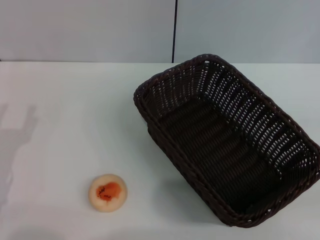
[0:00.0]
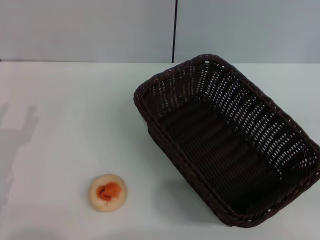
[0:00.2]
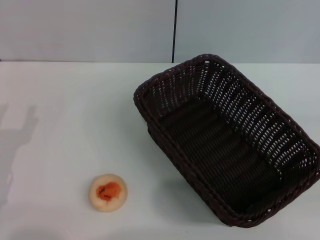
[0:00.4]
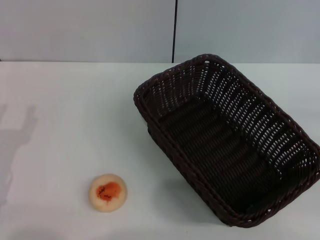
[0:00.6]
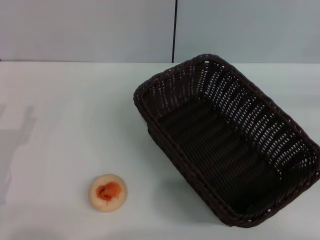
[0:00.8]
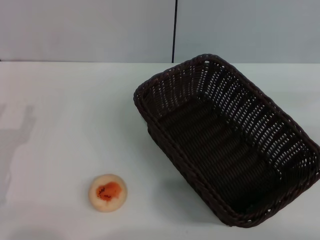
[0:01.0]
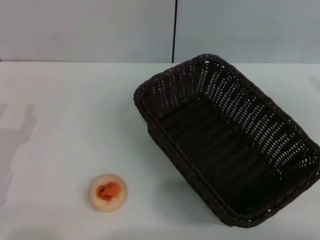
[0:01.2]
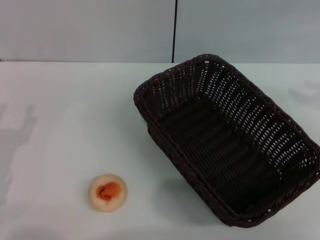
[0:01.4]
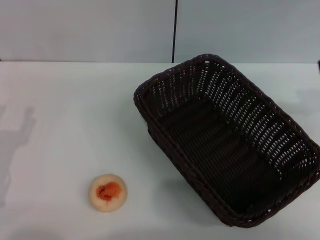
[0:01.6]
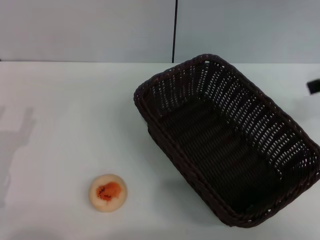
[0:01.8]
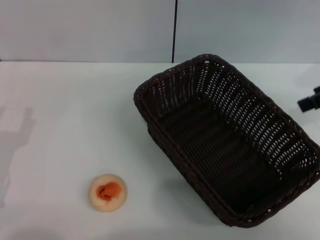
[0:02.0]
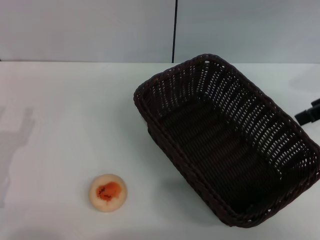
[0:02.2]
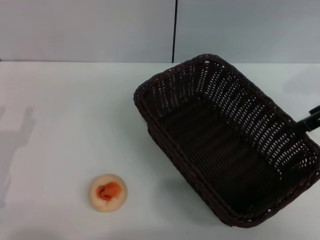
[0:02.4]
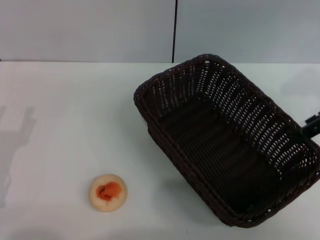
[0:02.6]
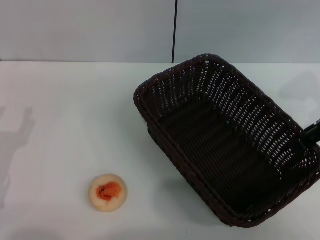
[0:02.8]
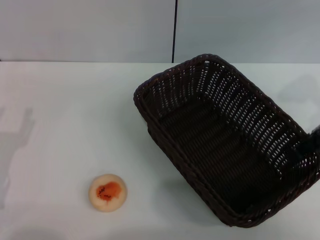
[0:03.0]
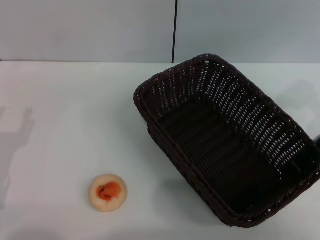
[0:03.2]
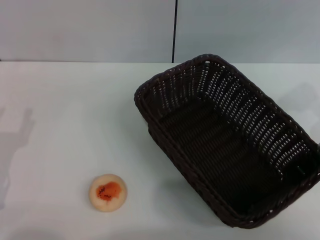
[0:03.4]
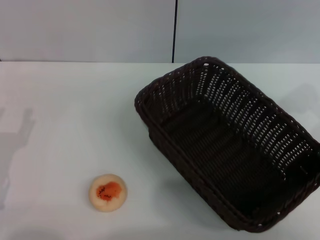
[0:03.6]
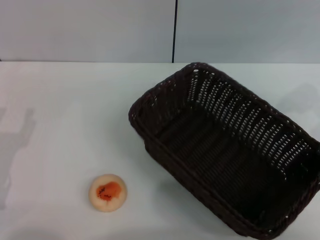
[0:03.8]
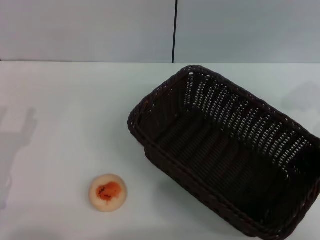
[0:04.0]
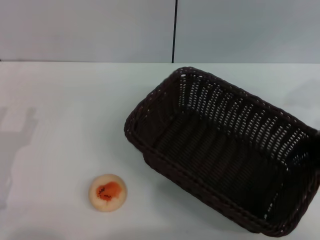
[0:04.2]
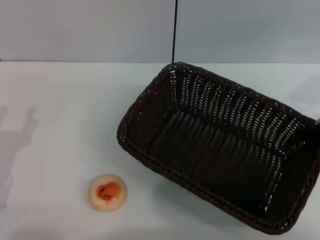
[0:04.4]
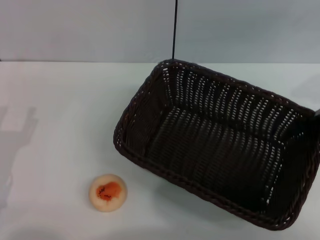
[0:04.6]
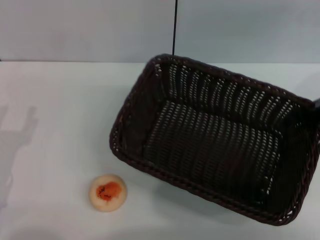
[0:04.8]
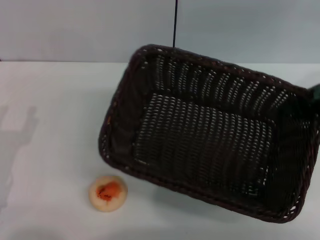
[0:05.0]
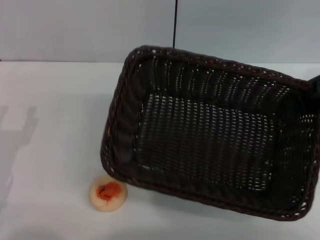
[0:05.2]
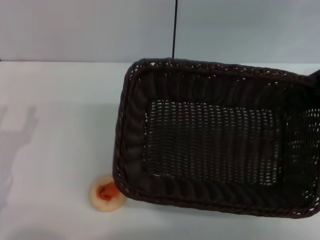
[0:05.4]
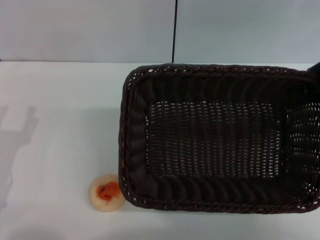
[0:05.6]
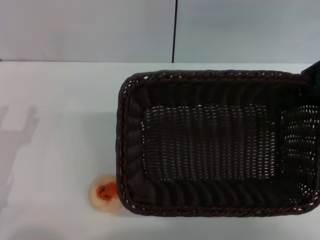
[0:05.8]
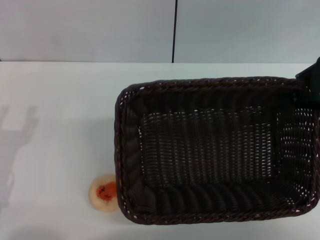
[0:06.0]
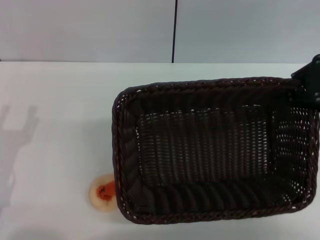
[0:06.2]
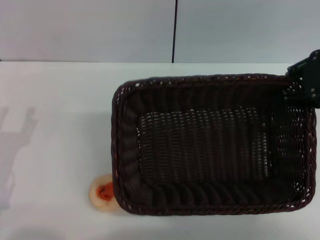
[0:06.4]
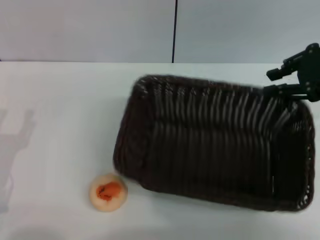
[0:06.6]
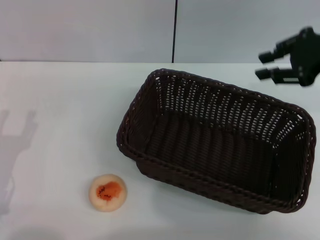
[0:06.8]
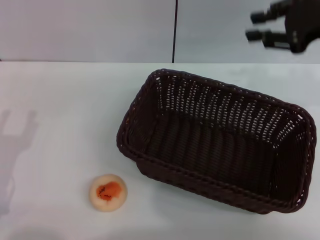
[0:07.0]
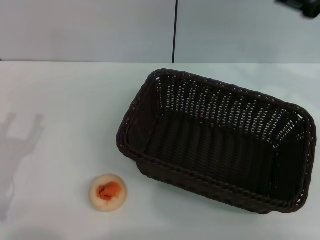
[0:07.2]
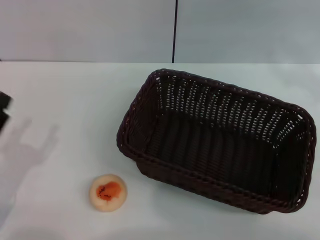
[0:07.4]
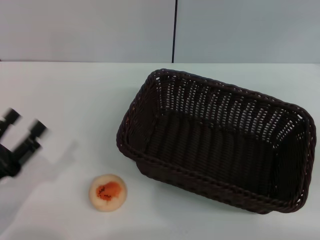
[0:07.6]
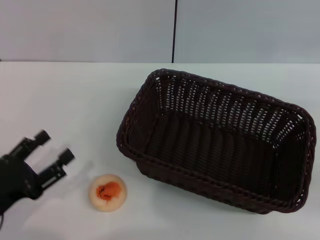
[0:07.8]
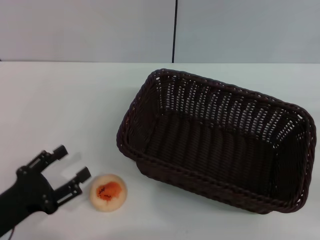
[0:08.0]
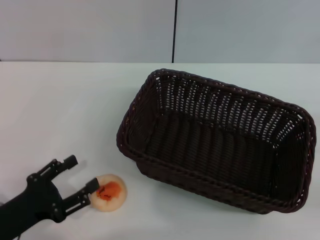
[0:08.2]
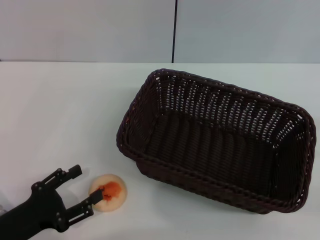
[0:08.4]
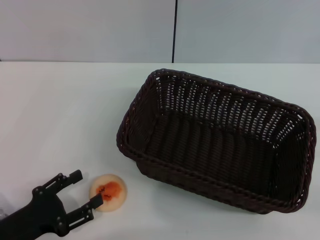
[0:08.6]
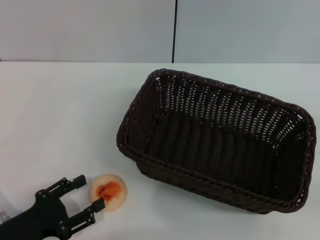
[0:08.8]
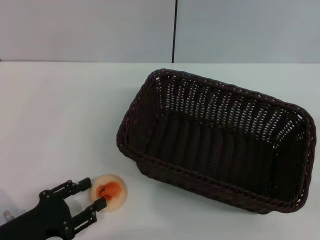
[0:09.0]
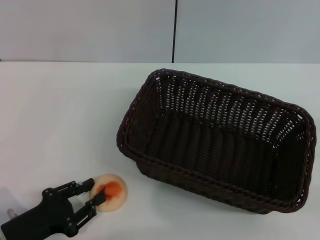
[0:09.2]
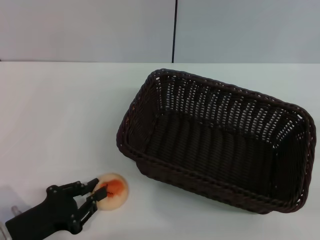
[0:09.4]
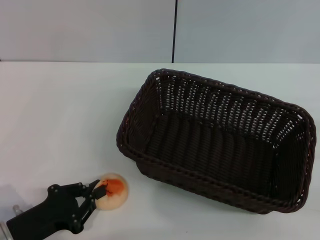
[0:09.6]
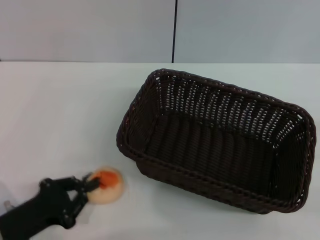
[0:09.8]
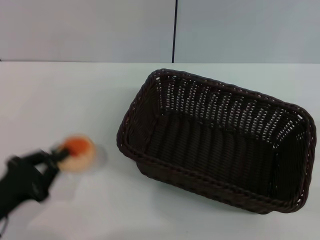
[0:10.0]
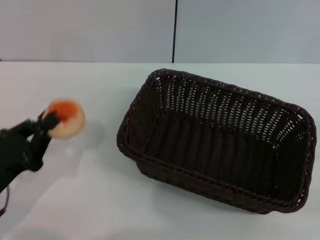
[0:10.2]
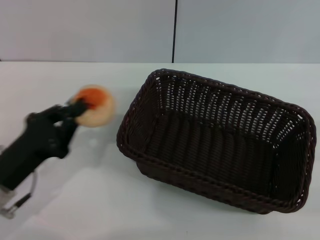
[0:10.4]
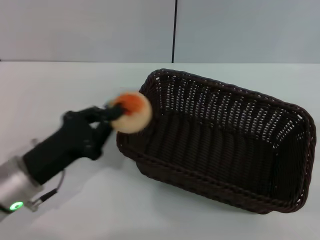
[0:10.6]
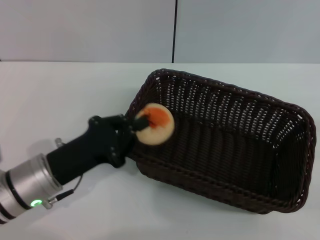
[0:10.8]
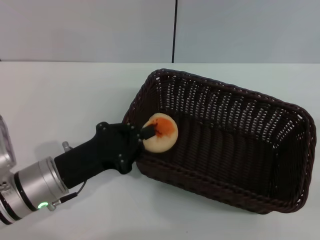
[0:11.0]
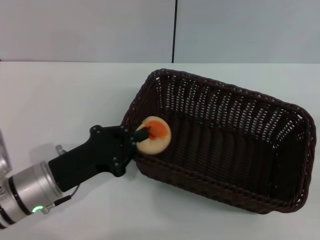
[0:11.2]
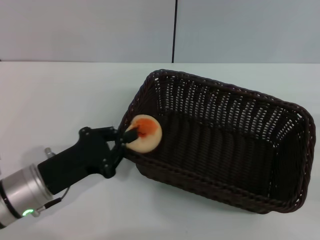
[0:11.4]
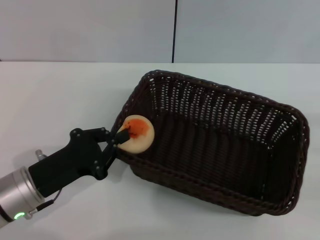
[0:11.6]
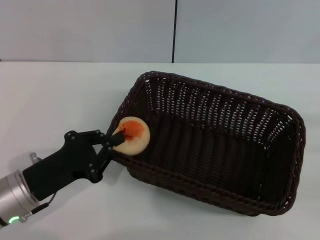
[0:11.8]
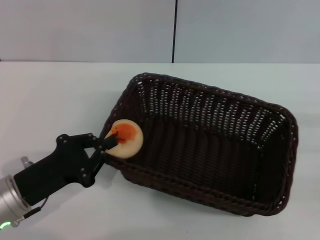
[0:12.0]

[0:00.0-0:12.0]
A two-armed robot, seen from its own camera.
Step, 0:00.0 to 0:06.8: Move the basket to the center of view with the right gripper.
Step, 0:07.0 to 0:10.0: Pick up the egg yolk pastry with the left gripper.
0:00.0 to 0:01.6: The right gripper goes approximately 25 cm upward and forward, and opens its fingers.
0:03.0 to 0:04.4: The right gripper closes its fingers.
0:06.0 to 0:07.6: The right gripper is displaced downward, to the right and backward by some 15 cm.
0:09.0 to 0:10.4: The left gripper moves forward, approximately 5 cm, and closes.

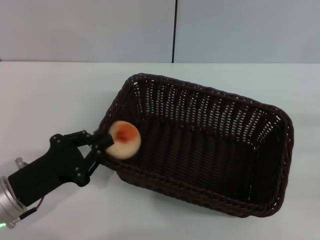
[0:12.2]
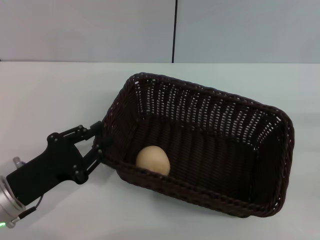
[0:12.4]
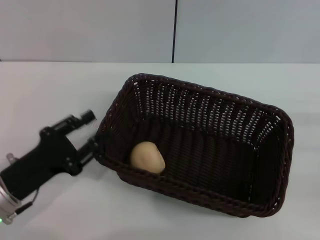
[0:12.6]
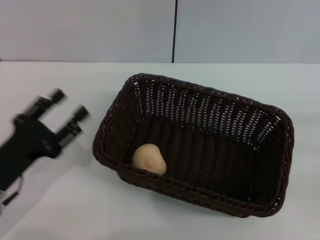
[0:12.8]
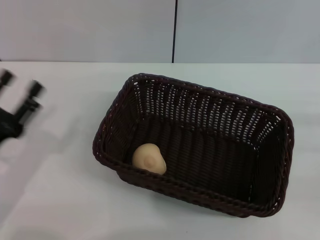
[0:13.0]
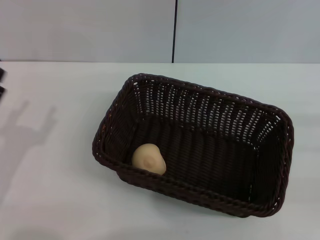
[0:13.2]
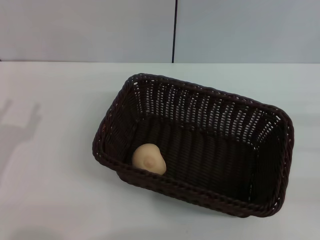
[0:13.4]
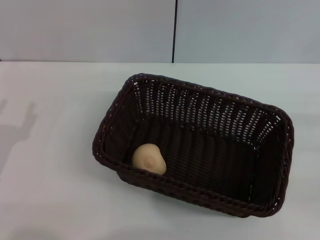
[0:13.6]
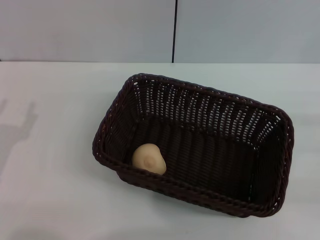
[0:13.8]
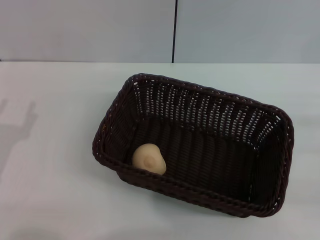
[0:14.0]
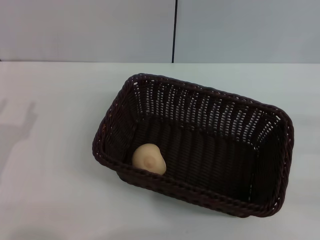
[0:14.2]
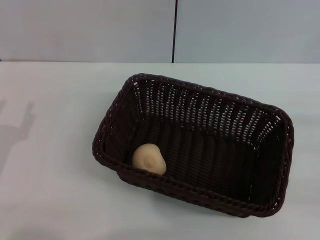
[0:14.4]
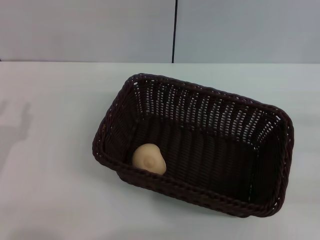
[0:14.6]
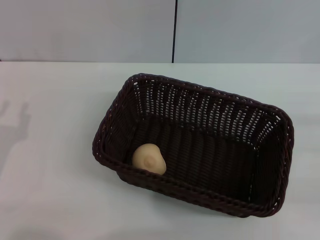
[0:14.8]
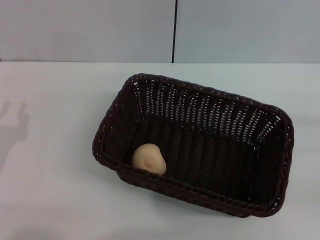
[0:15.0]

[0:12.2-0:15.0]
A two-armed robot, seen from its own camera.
0:12.2 to 0:13.6: The left gripper moves to the left, about 5 cm, and opens up.
0:13.6 to 0:15.0: Both grippers stay put.
